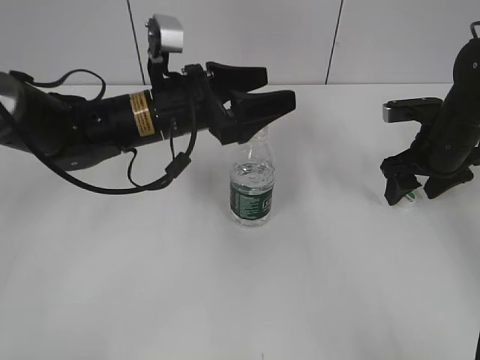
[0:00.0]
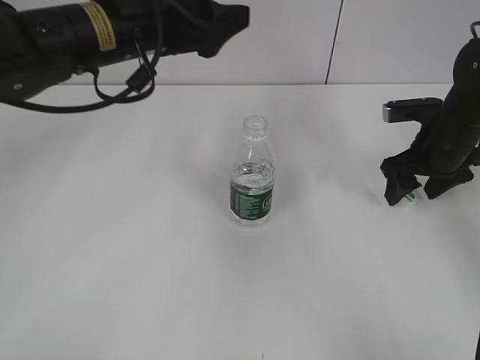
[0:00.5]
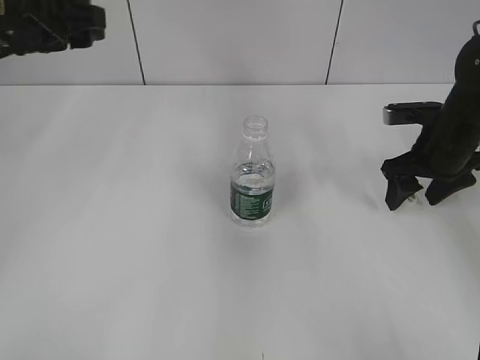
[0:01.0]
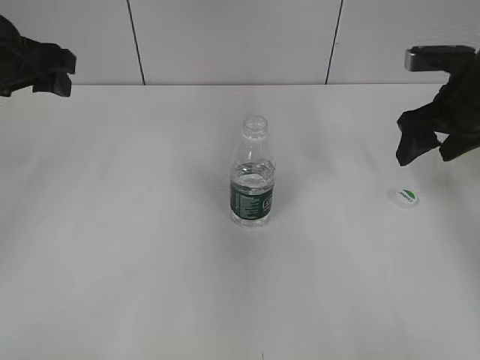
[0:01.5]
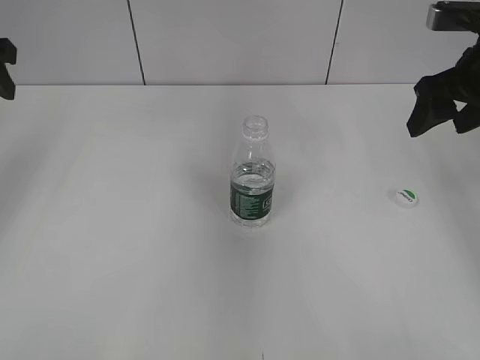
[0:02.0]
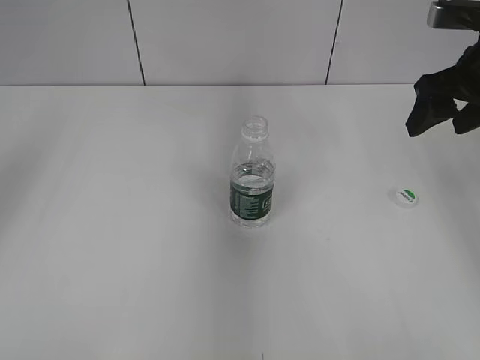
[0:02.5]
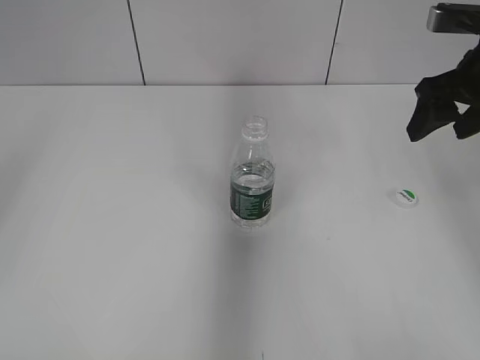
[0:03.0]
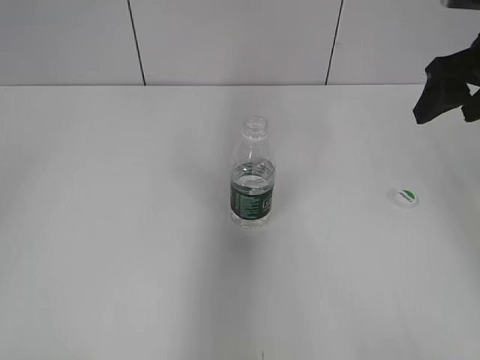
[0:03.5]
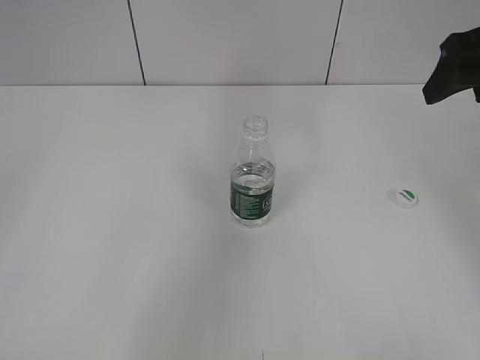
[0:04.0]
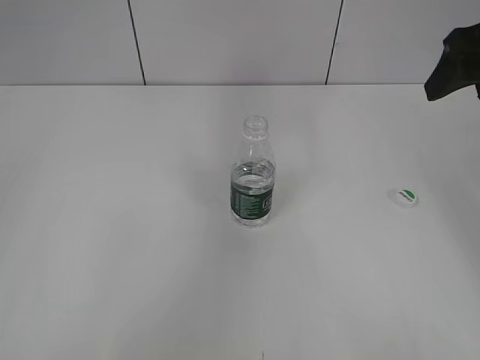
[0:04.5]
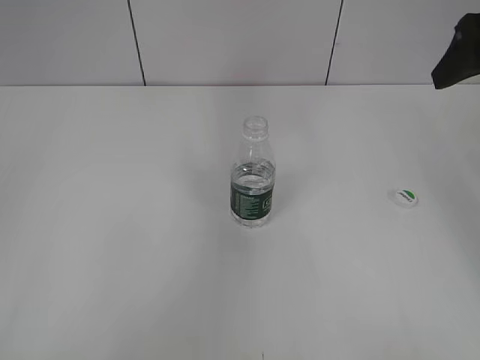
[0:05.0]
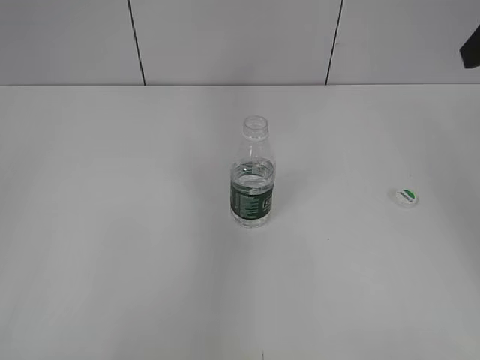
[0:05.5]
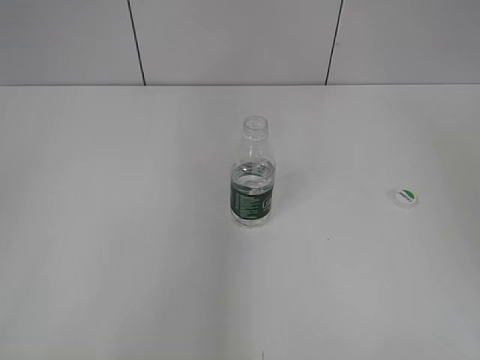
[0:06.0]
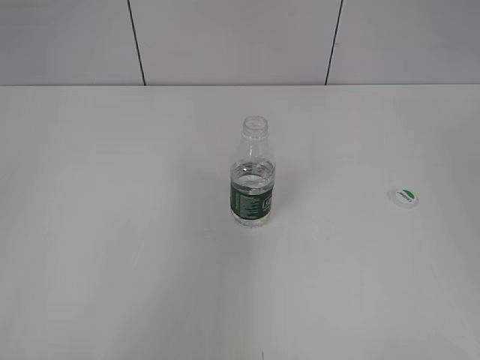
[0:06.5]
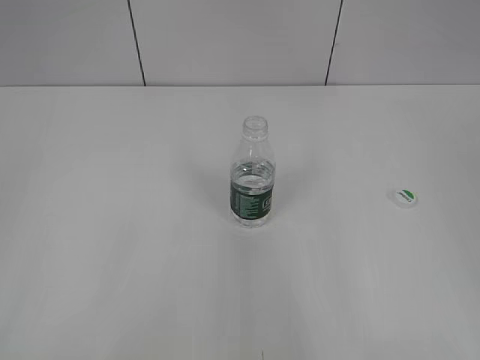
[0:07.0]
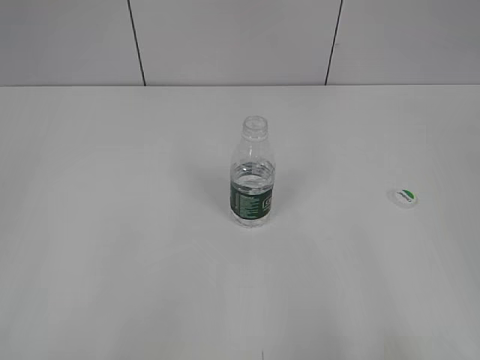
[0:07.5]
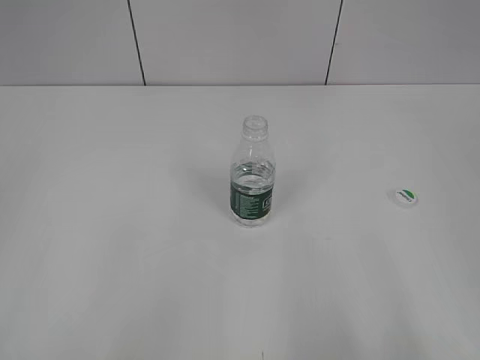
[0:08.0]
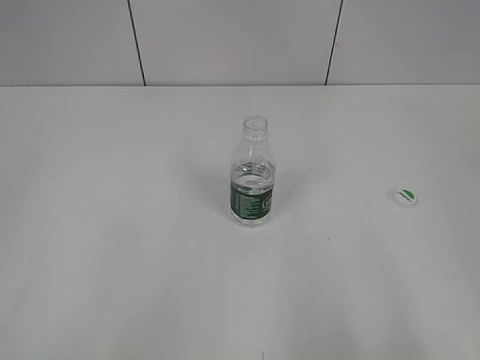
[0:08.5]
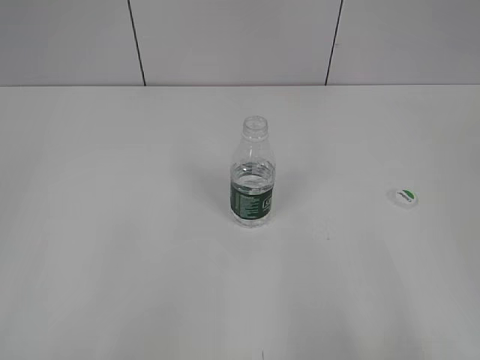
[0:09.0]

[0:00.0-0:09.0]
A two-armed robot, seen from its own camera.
0:00.0 to 0:02.0: The right gripper travels upward by roughly 15 cm, while the left gripper travels to the left and upward by approximately 25 cm, and closes.
0:02.0 to 0:04.5: The right gripper goes approximately 5 cm upward.
0:04.5 to 0:07.0: The right gripper is displaced backward by some 30 cm.

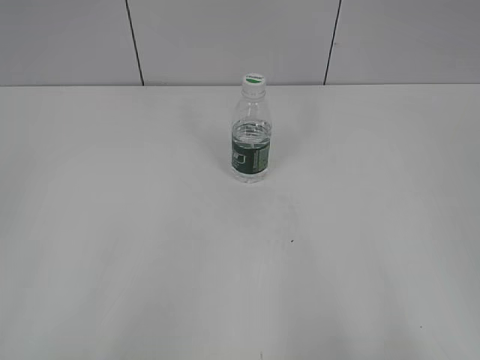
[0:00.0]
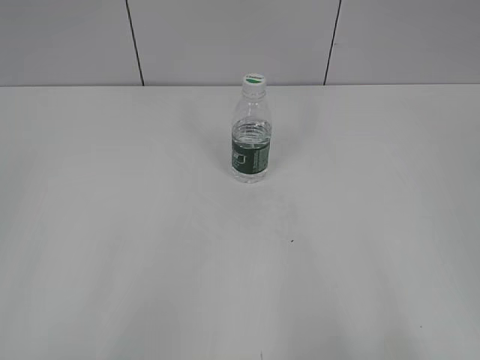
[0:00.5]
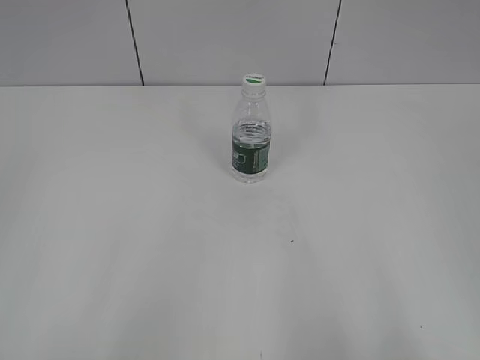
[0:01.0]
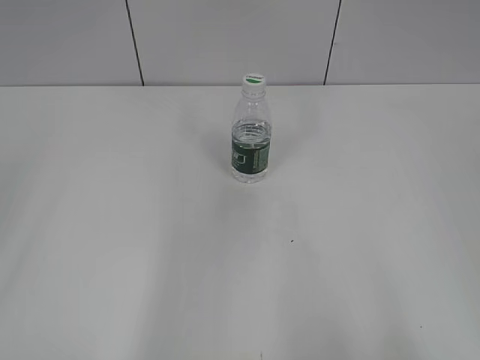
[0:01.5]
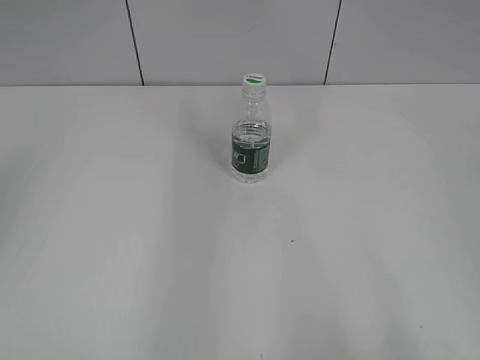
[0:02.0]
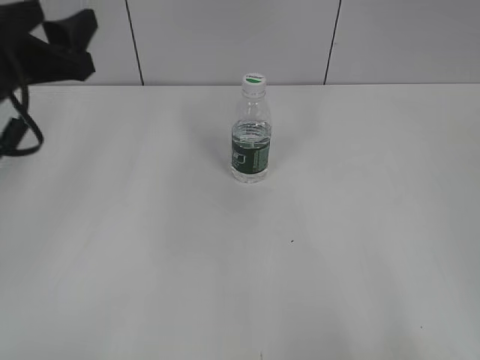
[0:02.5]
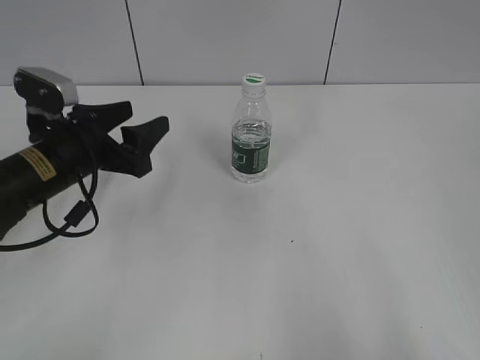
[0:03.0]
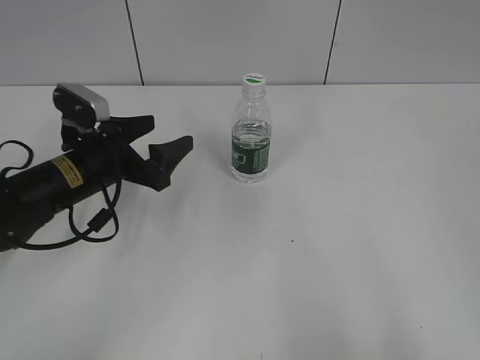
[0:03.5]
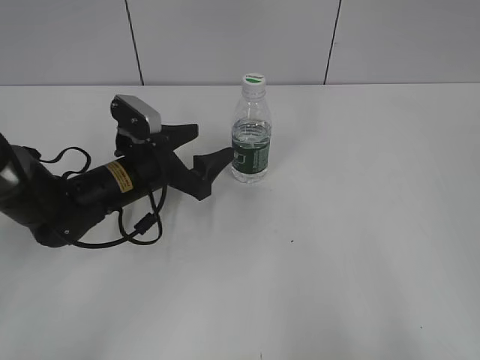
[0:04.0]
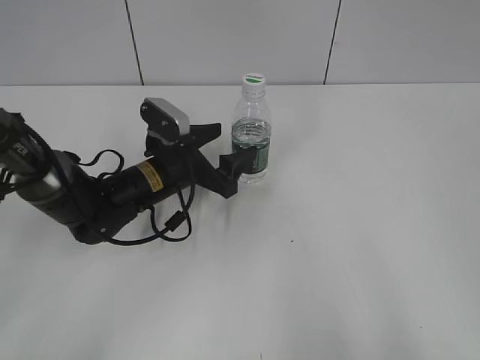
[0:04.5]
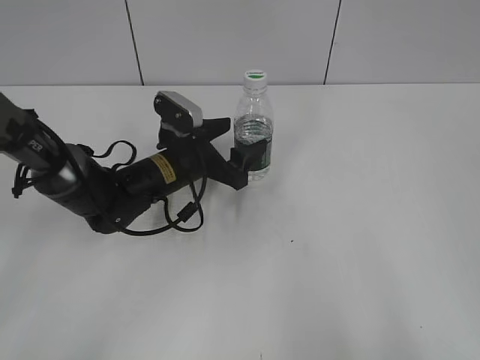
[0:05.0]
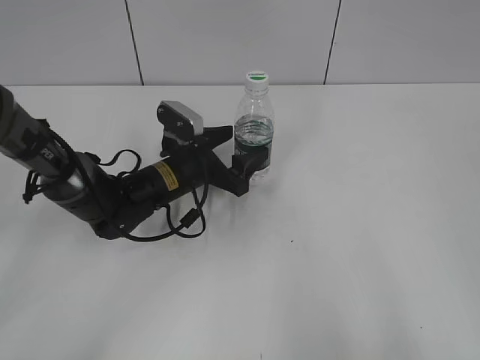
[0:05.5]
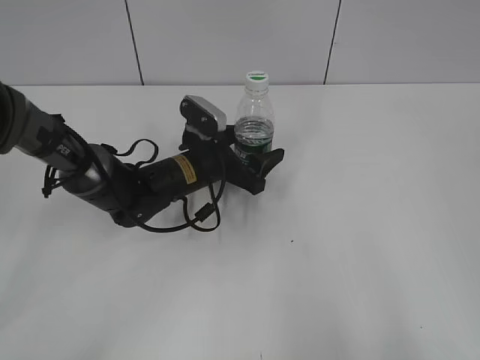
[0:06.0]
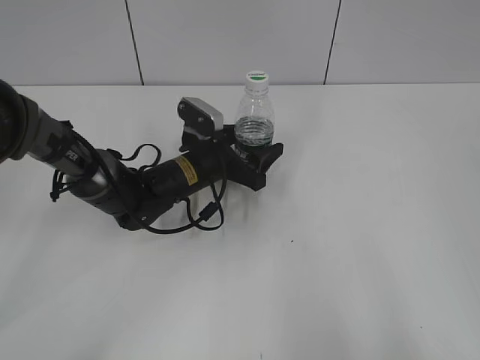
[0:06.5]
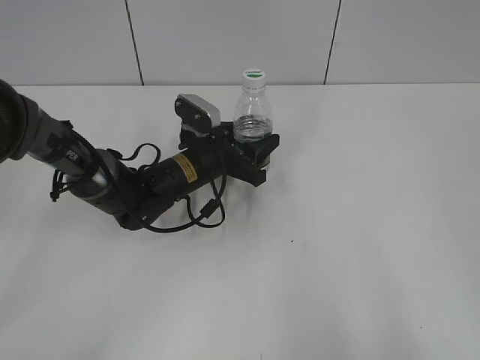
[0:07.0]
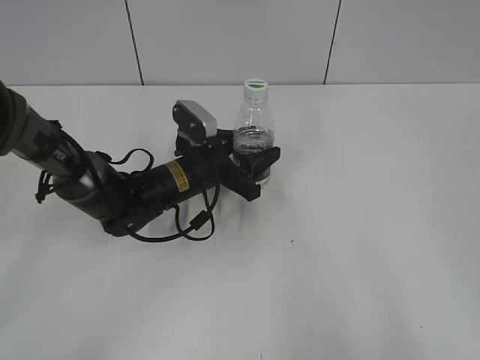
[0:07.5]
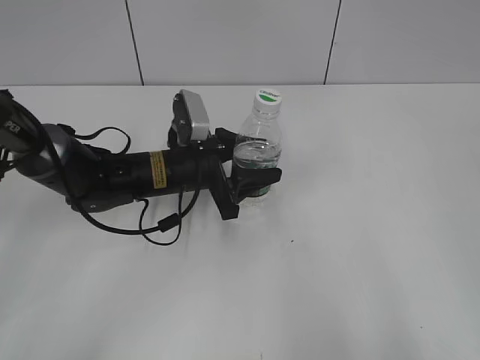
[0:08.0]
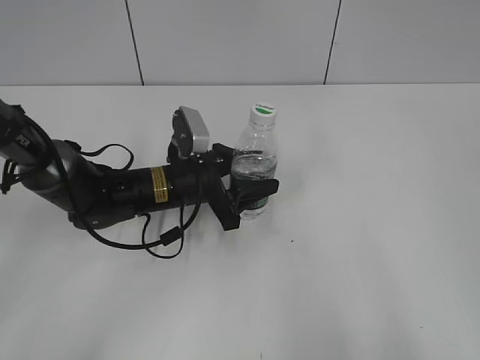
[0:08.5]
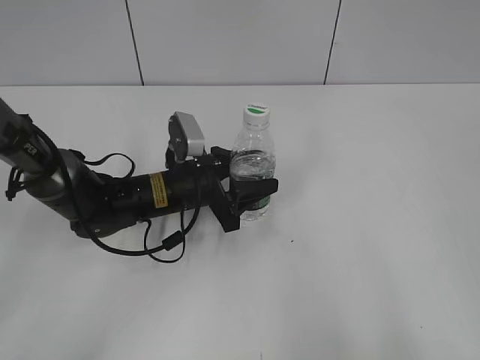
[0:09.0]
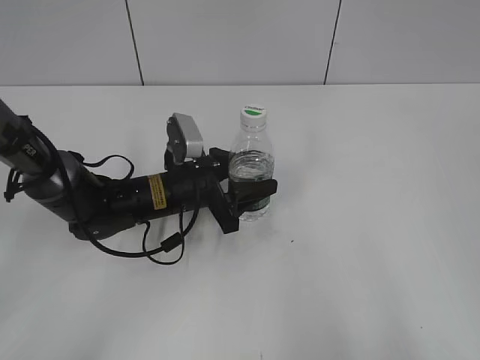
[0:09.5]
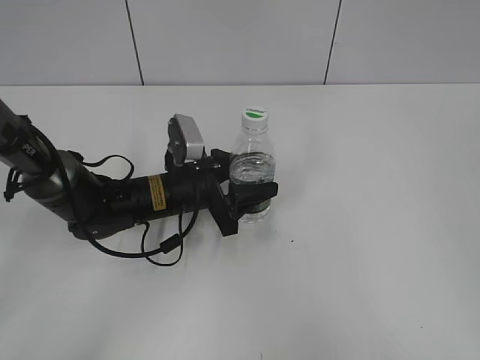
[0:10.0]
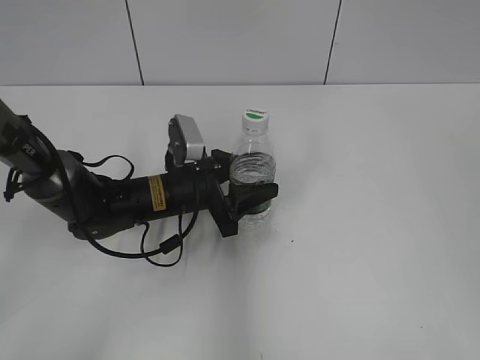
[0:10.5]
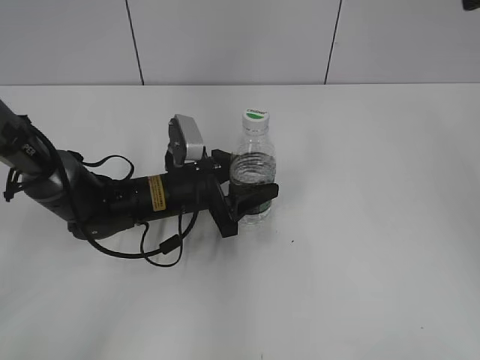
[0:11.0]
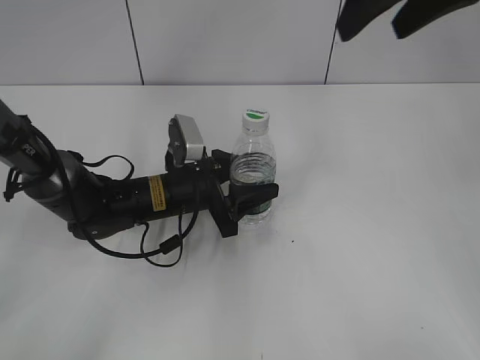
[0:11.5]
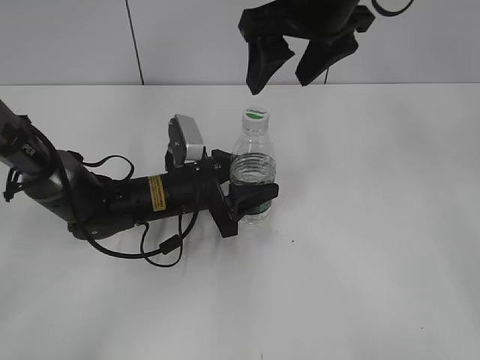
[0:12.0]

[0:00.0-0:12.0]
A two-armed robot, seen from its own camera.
Step, 0:00.0 to 0:06.5: Grasp the bottle and move it to the center of the table with the left gripper.
Step, 0:07.0 to 0:11.5: Lift the bottle and move it to the center of the table with the left gripper.
0:02.0 to 0:04.0: The left gripper travels downward, forward and to the right by approximately 35 cm, and opens its fingers.
0:04.0 to 0:06.0: The left gripper travels to the right by roughly 5 cm.
0:06.0 to 0:08.0: The left gripper closes.
0:08.0 to 0:10.0: There are only small adjustments of the grippers.
0:10.0 to 0:12.0: The right gripper goes roughly 40 cm forward and to the left.

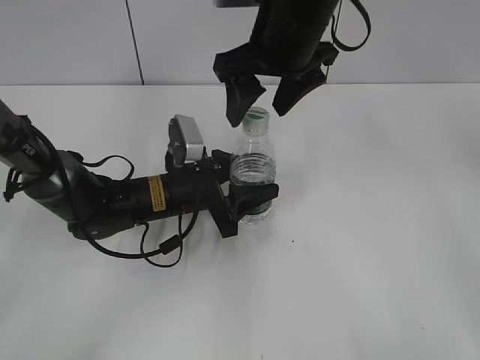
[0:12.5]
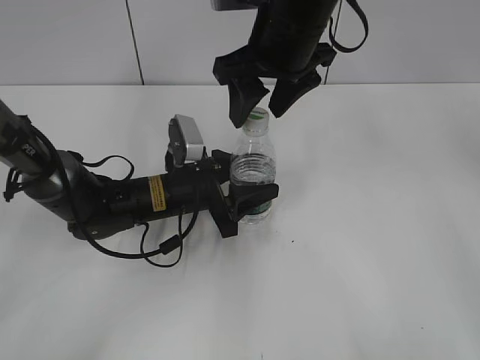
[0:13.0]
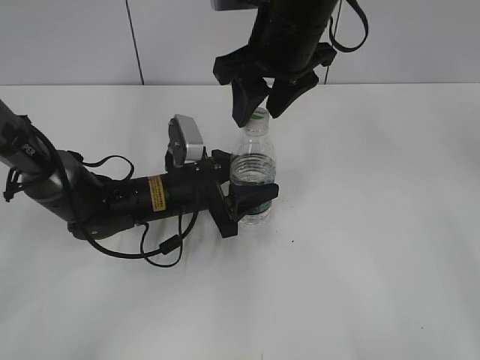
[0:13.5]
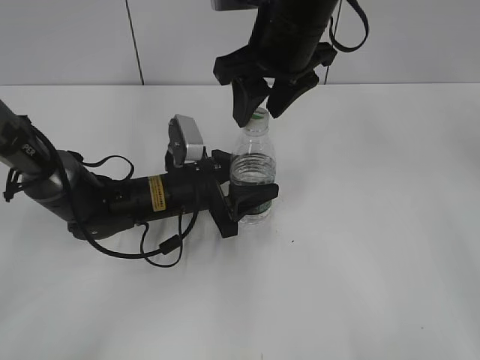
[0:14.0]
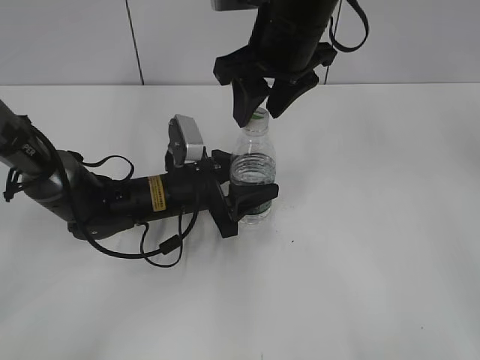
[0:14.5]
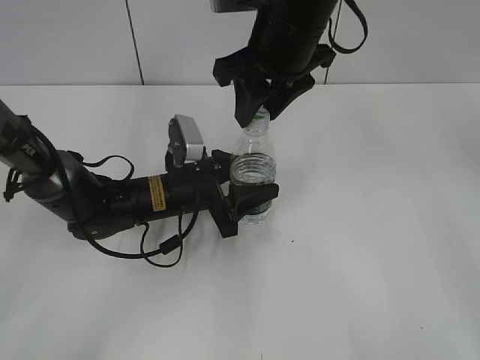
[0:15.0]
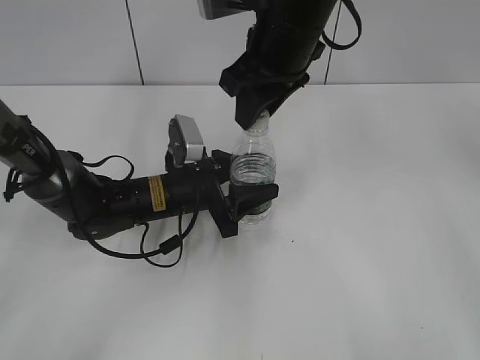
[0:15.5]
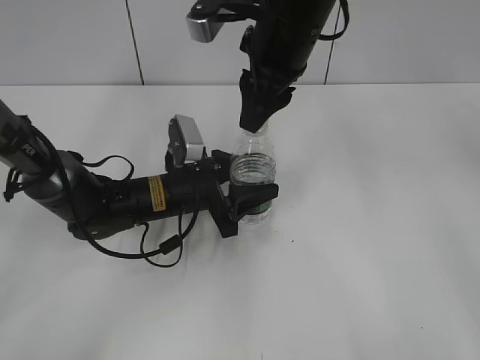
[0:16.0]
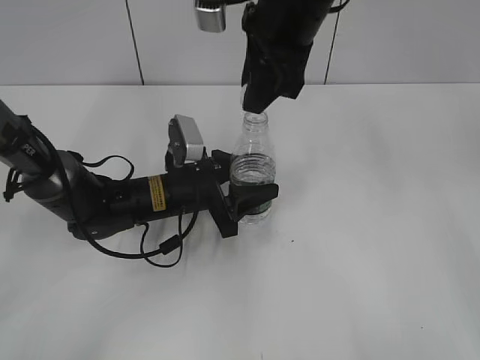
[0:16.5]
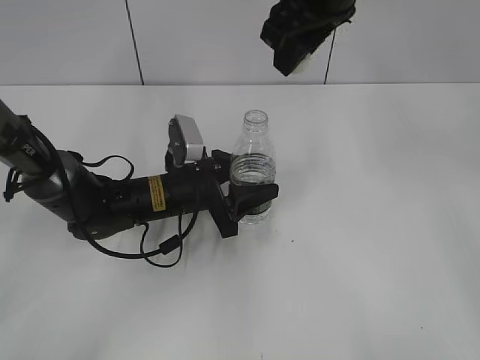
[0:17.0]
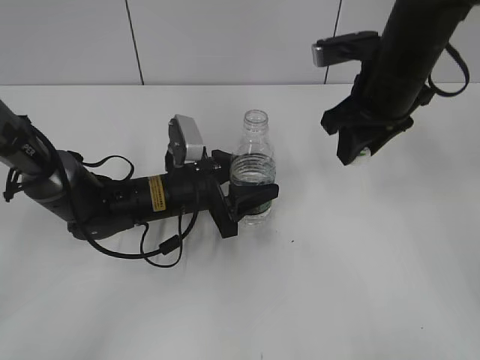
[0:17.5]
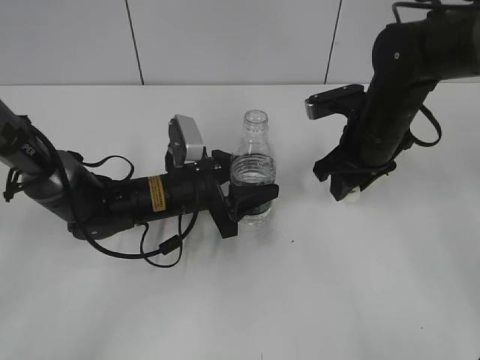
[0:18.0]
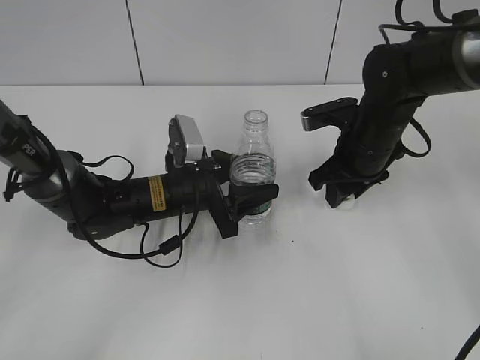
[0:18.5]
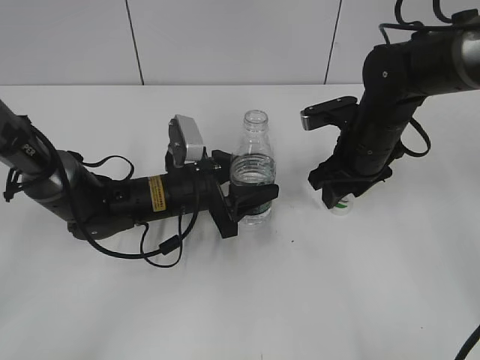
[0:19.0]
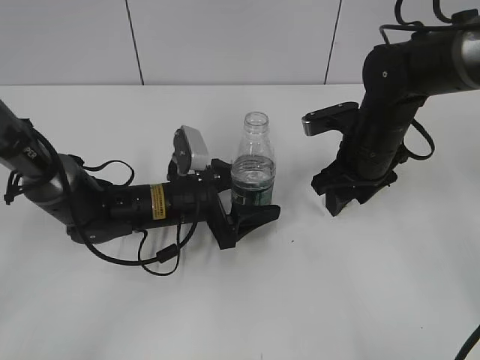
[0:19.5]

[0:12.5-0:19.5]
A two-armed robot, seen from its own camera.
Step, 0:12.5 to 0:16.5: Unscrew the bottle cap with the right gripper while holding the bottle with the left gripper.
Step, 0:17.0 to 0:19.0: Place the bottle cap on the table with the right gripper.
0:12.5 to 0:14.5: The right gripper closes its fingers.
0:14.5 to 0:16.0: The right gripper closes up.
0:16.0 to 0:17.5: The right gripper shifts some 10 cm to the right.
0:17.5 to 0:19.5: The left gripper opens its fingers. Meanwhile the right gripper is displaced downward by some 10 cm, and opens its fingers.
